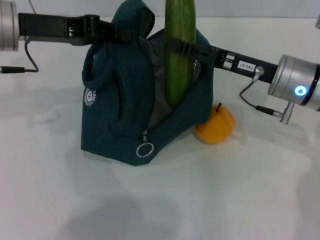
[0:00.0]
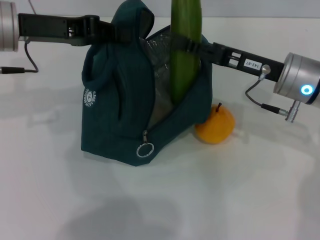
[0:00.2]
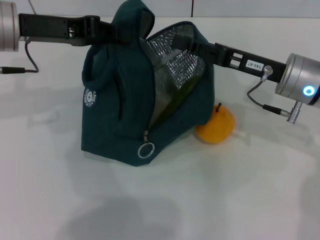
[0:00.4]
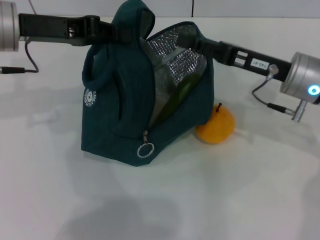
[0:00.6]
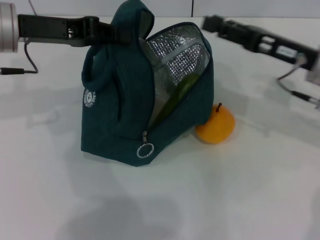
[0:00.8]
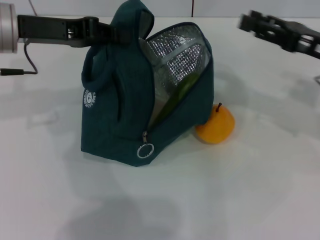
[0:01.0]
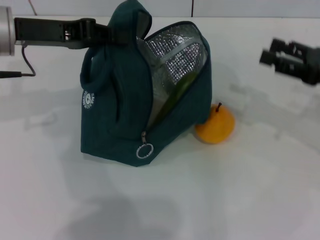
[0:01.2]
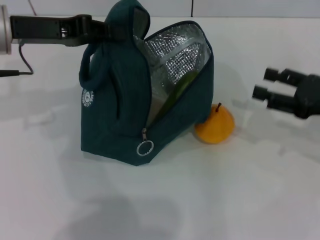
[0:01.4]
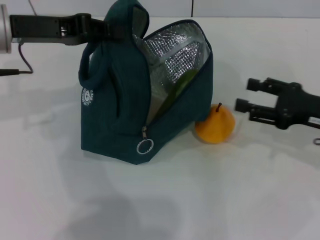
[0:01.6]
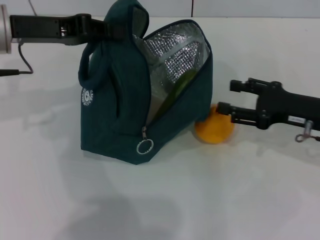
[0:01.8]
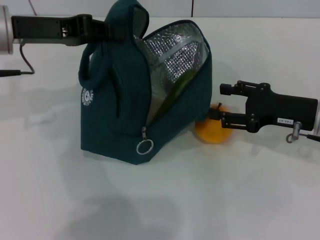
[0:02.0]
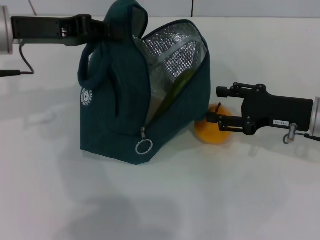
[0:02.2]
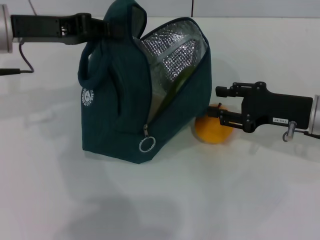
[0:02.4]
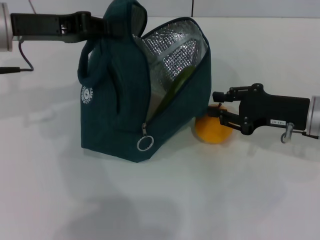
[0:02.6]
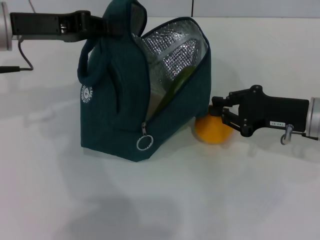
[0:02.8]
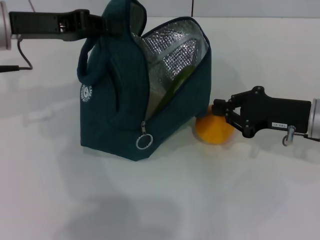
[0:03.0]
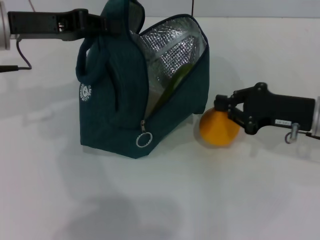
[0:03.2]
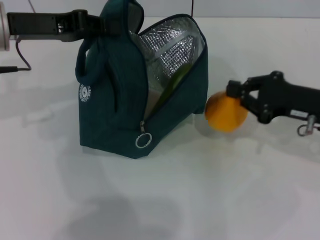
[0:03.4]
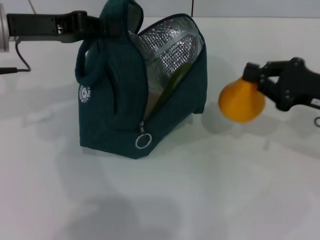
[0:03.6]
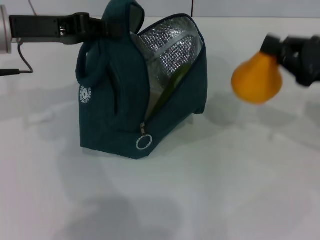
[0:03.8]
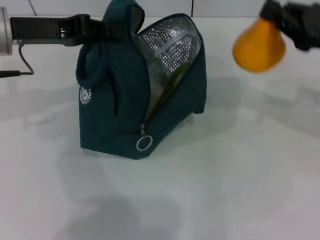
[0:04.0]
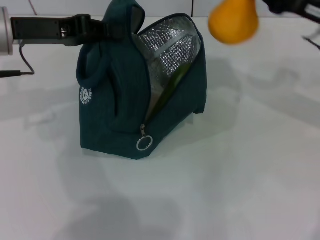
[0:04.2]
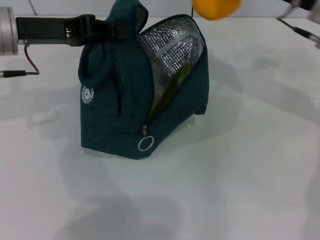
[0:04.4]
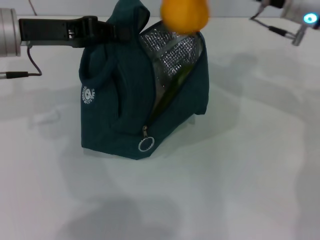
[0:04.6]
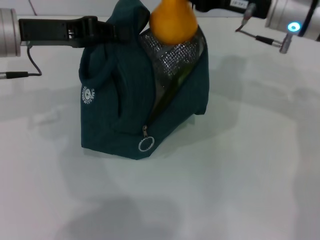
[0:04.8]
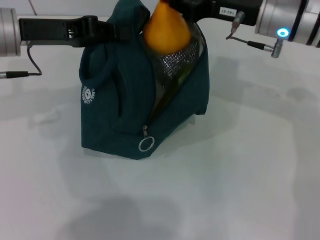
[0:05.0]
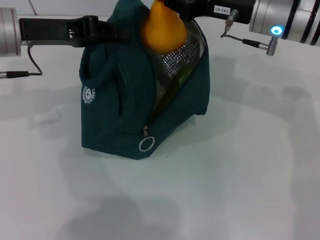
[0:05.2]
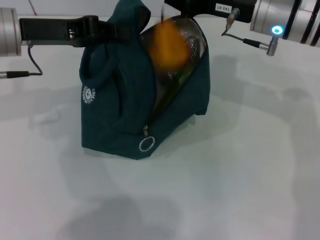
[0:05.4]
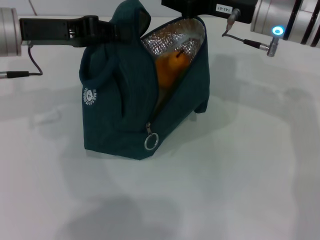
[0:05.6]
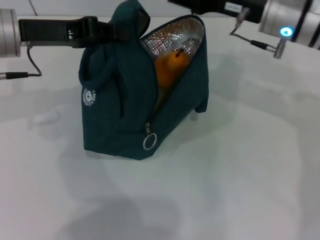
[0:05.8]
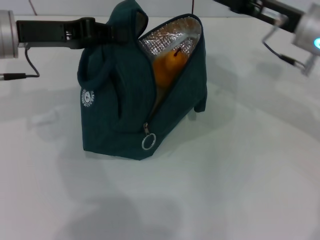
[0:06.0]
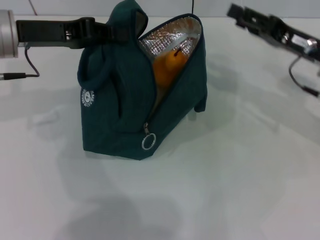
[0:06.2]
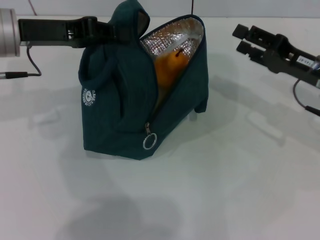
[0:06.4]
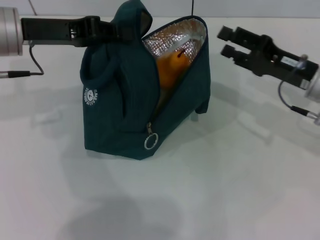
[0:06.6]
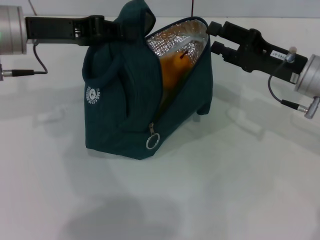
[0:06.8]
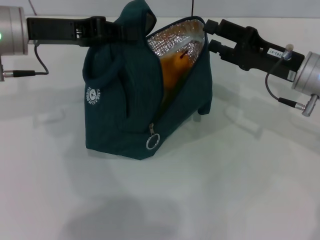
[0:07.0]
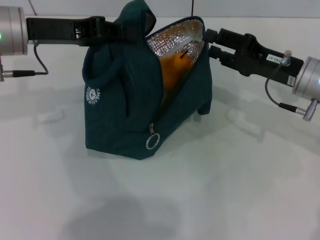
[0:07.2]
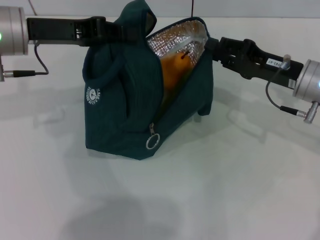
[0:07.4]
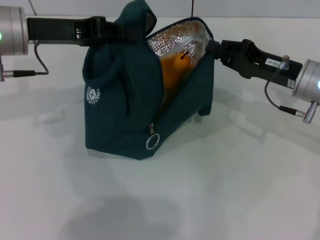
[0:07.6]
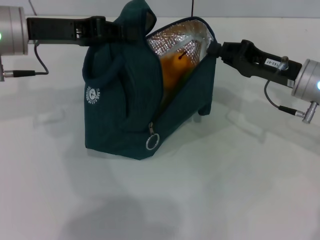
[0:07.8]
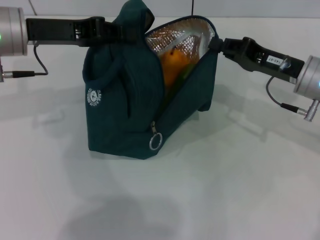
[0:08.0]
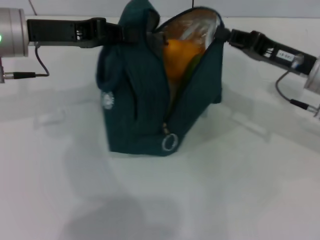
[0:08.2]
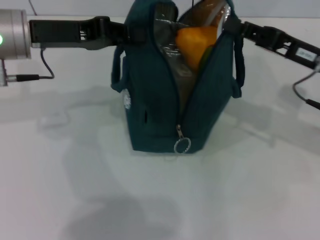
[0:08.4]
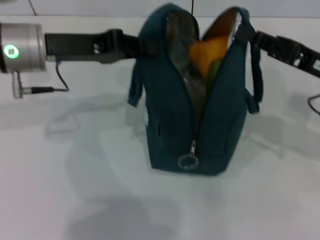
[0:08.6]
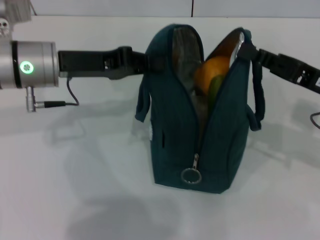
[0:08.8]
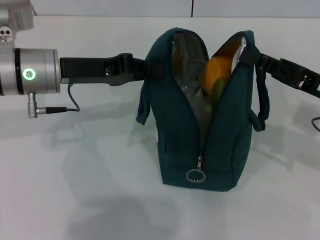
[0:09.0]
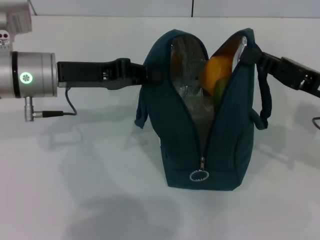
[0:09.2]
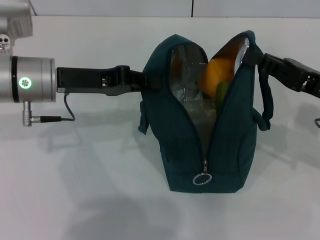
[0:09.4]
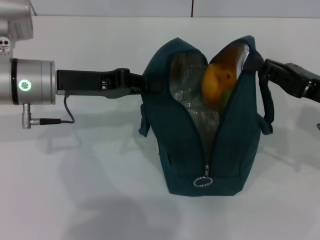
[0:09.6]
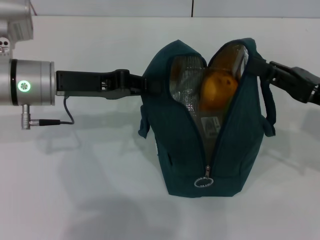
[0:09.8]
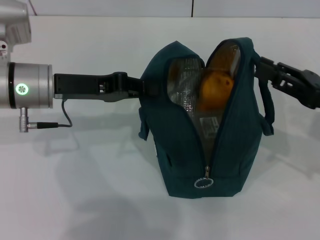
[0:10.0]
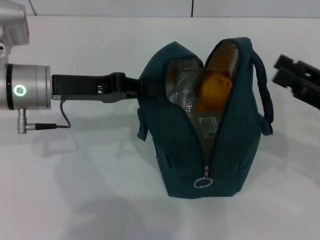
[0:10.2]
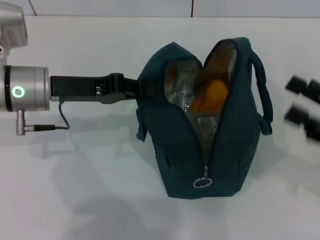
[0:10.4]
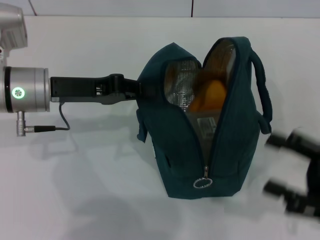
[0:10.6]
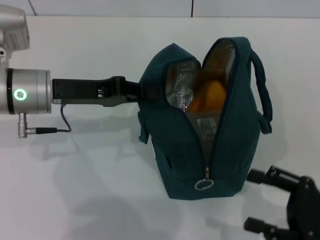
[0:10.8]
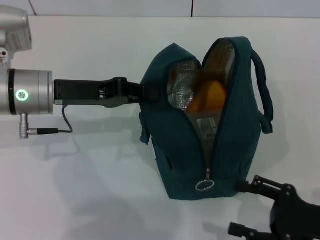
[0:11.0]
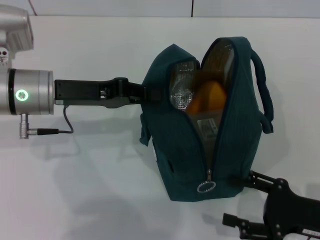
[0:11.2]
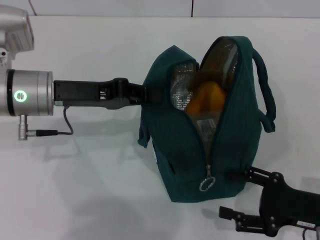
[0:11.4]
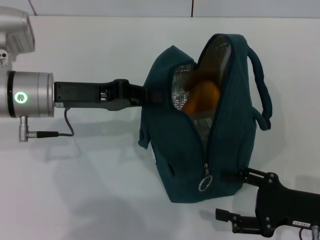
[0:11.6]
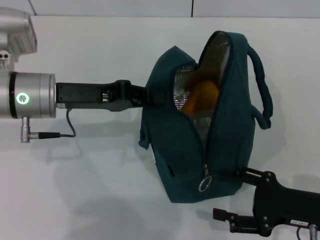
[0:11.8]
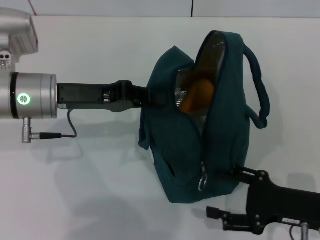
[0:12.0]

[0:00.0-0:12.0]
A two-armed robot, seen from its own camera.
Step, 0:00.8 to 0:02.8: Grab the pear with your right hand.
Step, 0:05.8 to 0:09.8: Hold the lunch bag with your right hand.
0:00.0 to 0:01.6: The right gripper travels to the right by about 10 cm.
0:01.6 to 0:03.0: The right gripper closes its fingers.
0:03.0 to 0:04.4: The right gripper heads upward and forward, covering some 15 cm.
0:04.4 to 0:06.0: The right gripper opens its fingers.
0:06.0 to 0:07.6: The right gripper is displaced downward by some 5 cm.
0:07.6 to 0:09.0: The left gripper goes about 5 cm downward. Meanwhile the right gripper moves backward, some 5 cm.
0:09.0 to 0:10.4: The right gripper is displaced backward and to the right by about 10 cm, and opens its fingers.
0:10.4 to 0:12.0: The right gripper shifts about 10 cm downward and to the left.

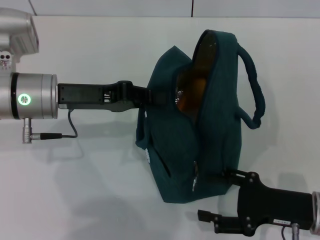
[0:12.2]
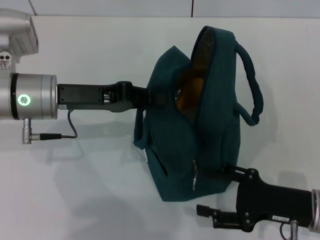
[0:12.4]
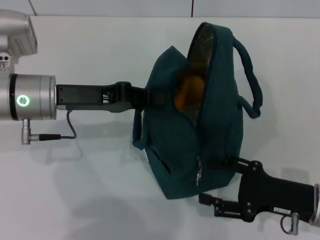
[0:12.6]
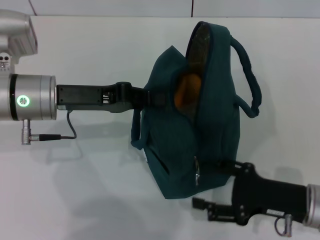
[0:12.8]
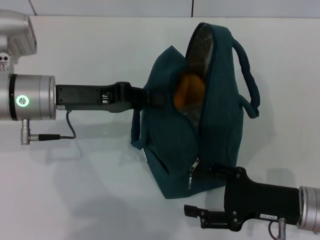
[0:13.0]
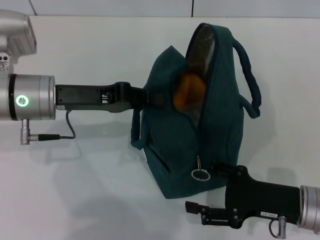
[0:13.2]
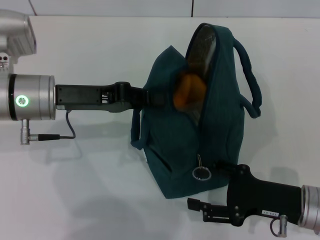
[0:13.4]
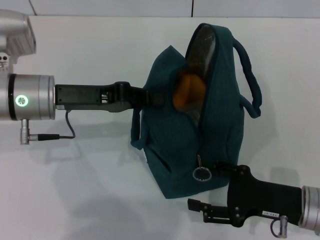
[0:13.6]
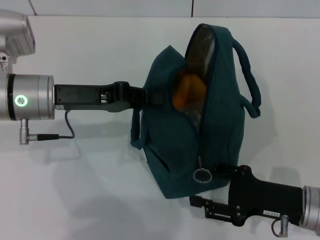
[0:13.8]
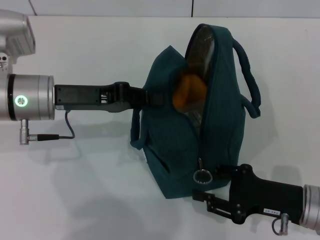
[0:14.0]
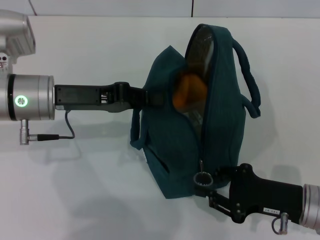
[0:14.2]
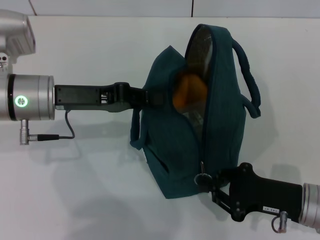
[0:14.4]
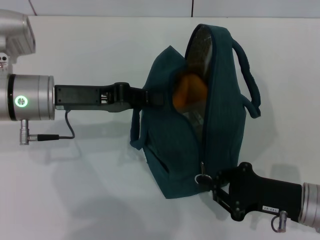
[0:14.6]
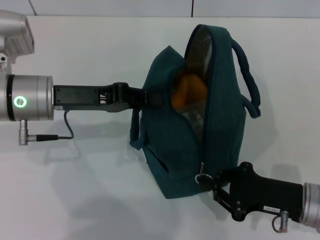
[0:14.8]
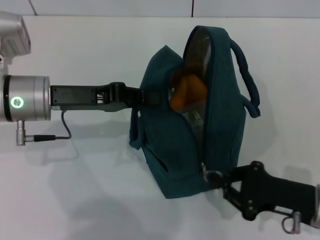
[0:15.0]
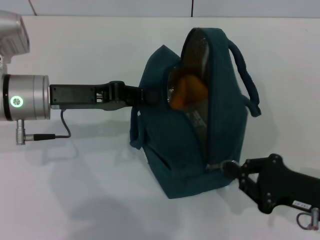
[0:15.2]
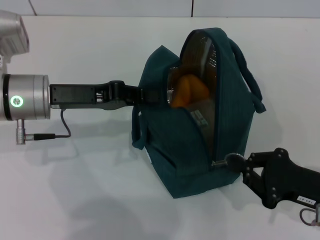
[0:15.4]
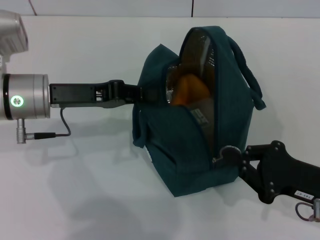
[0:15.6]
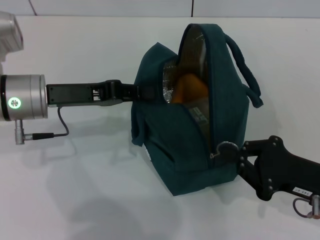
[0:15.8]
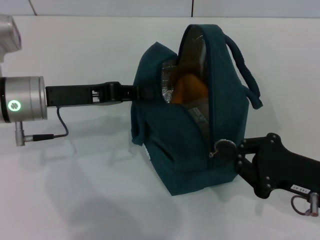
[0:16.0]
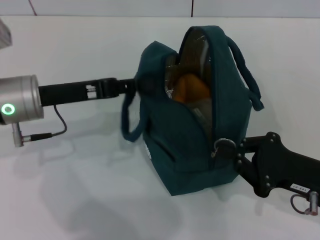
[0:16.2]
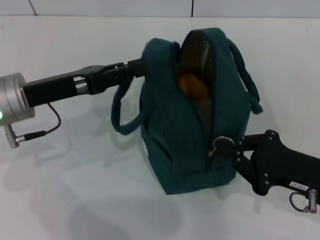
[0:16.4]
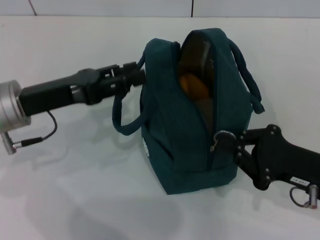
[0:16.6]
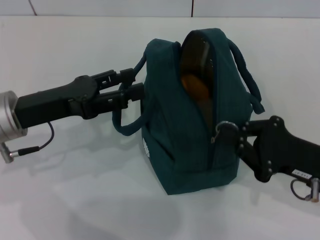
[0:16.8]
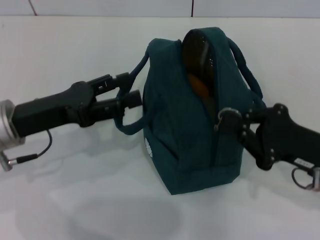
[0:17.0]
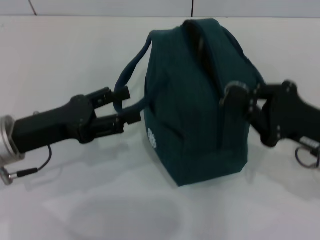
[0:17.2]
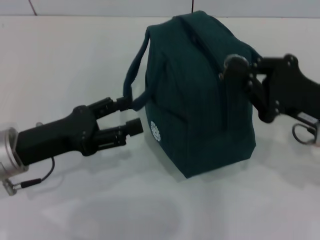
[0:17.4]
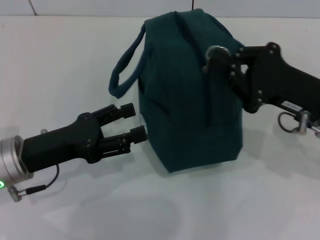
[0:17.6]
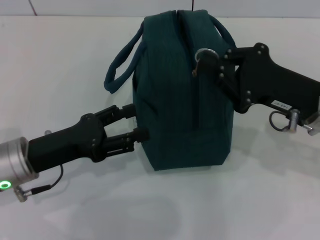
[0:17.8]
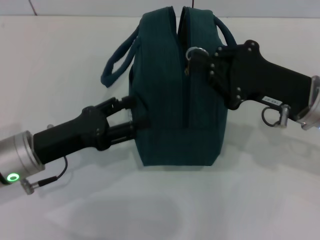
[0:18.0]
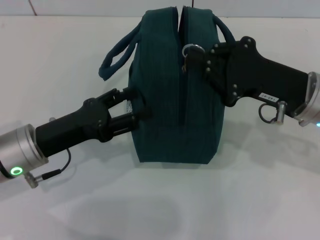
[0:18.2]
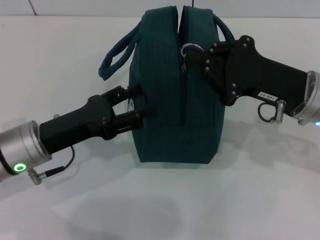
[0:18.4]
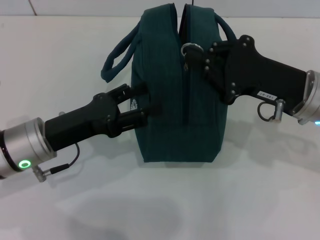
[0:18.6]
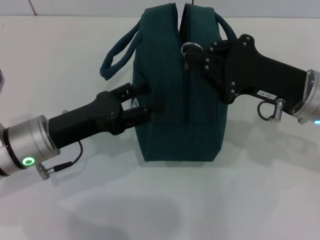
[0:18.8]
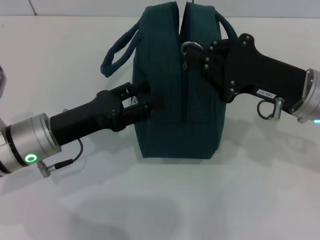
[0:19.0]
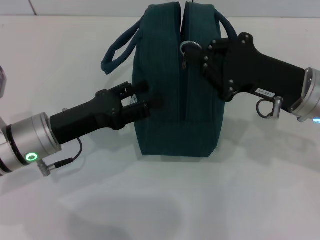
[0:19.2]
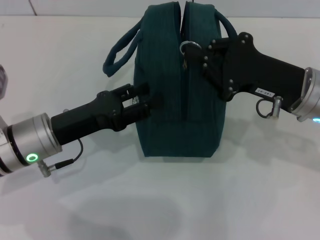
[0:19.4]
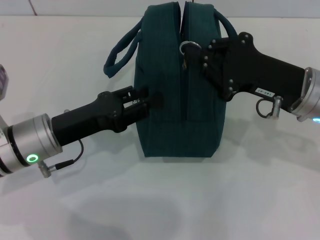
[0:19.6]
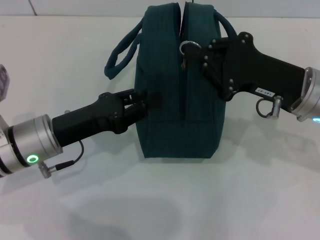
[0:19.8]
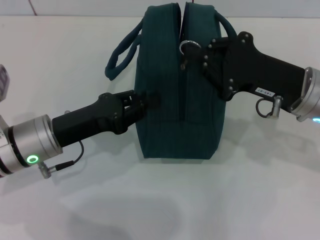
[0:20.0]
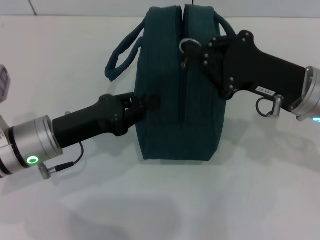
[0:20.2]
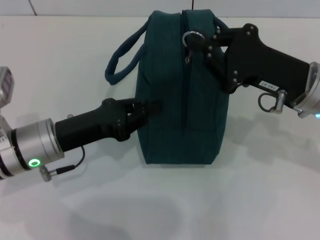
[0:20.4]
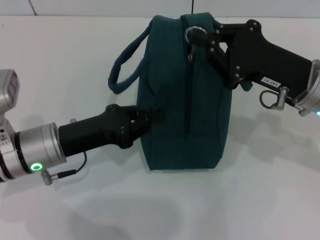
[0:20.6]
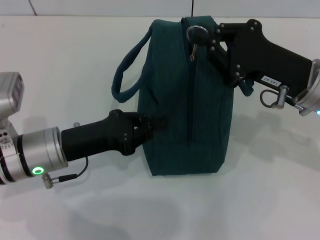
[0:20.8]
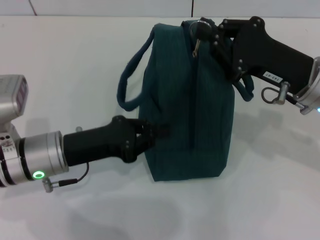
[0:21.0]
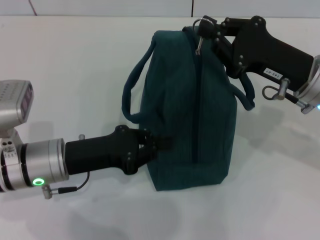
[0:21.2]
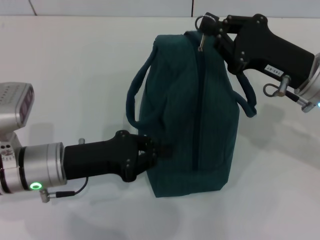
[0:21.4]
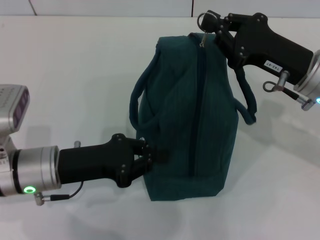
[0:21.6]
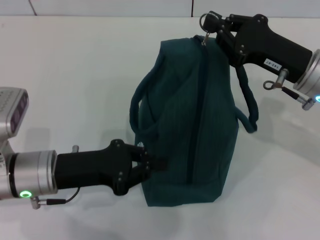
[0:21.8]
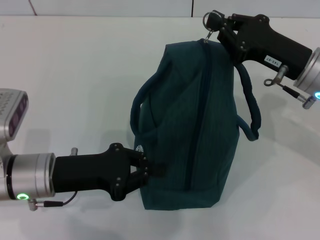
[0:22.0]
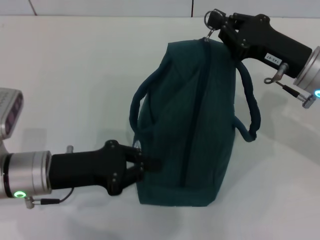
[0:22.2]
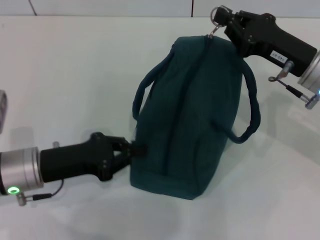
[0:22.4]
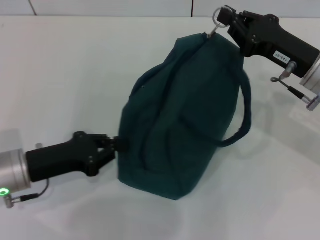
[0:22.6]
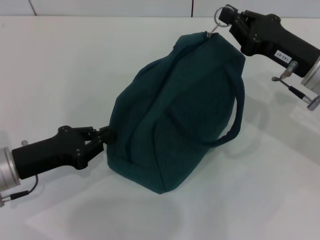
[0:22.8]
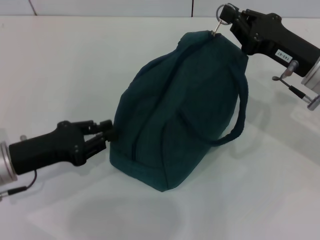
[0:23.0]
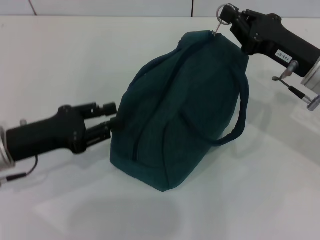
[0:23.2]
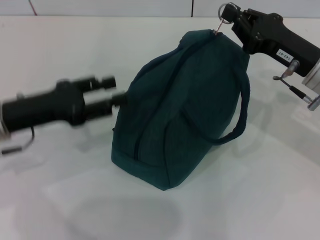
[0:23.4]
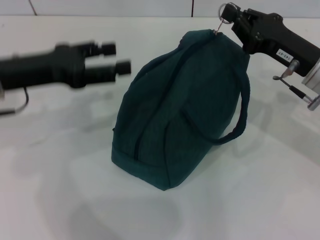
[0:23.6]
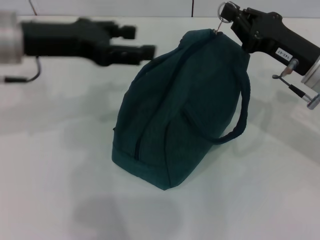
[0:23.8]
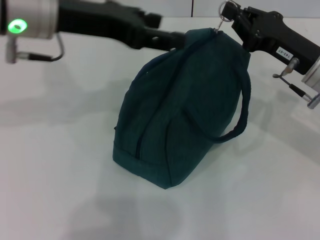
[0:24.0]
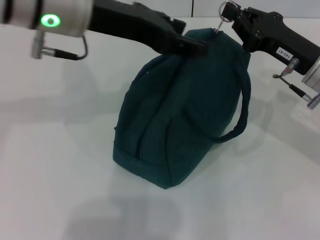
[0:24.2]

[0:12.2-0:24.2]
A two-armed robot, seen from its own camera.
Step, 0:12.2 to 0:16.4: Hold the lunch bag with your left hand.
0:12.2 to 0:13.8: The grippers stay close to where they were, moving slightly.
0:13.8 to 0:15.2: The right gripper closes up.
0:16.6 to 0:18.2: The left gripper is displaced downward by approximately 5 cm, and opens its fingers. Meanwhile the right gripper heads forward and upward, covering some 10 cm.
0:18.2 to 0:19.8: The left gripper closes.
0:19.8 to 0:21.2: The left gripper closes.
0:21.2 to 0:22.6: The left gripper goes some 5 cm to the left.
0:22.6 to 0:24.2: The left gripper is displaced upward, to the right and forward by approximately 25 cm, and opens.
